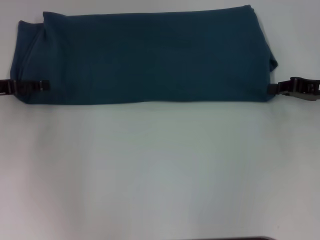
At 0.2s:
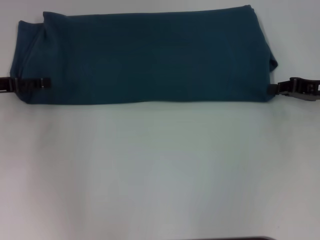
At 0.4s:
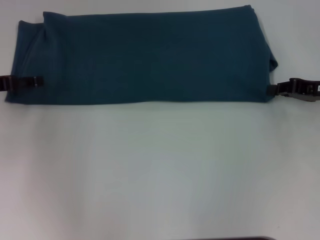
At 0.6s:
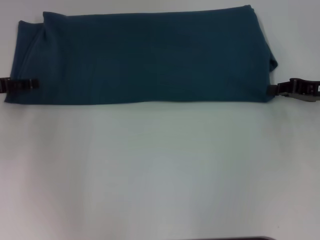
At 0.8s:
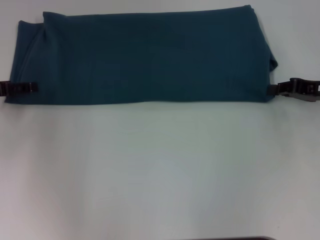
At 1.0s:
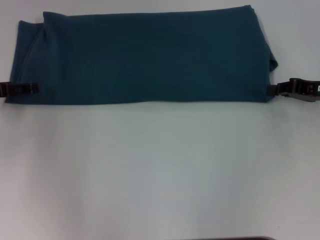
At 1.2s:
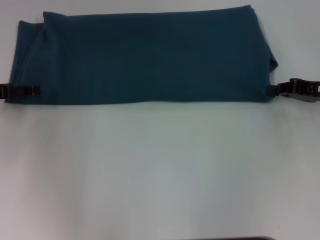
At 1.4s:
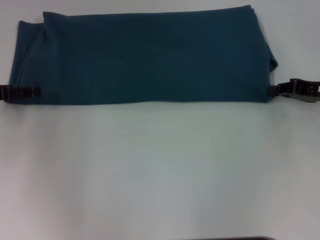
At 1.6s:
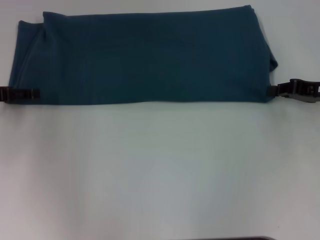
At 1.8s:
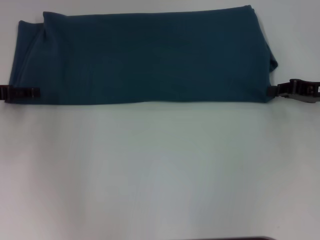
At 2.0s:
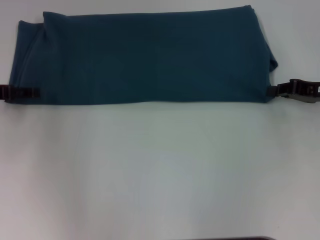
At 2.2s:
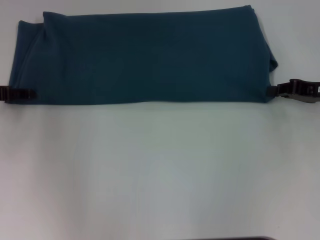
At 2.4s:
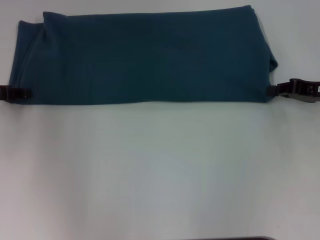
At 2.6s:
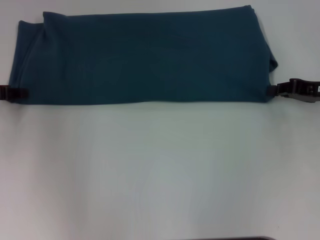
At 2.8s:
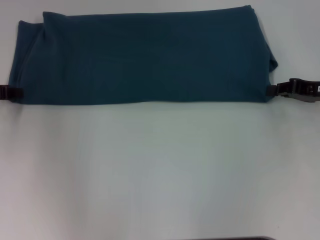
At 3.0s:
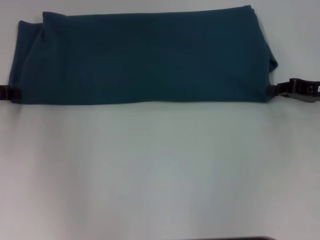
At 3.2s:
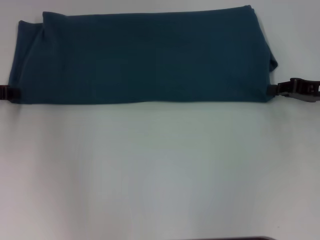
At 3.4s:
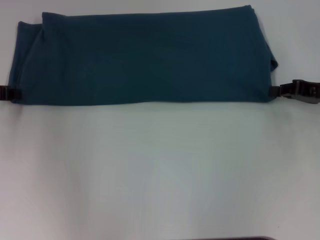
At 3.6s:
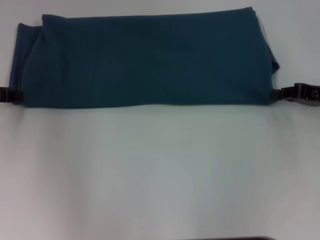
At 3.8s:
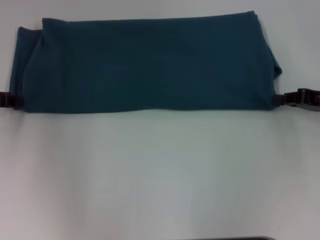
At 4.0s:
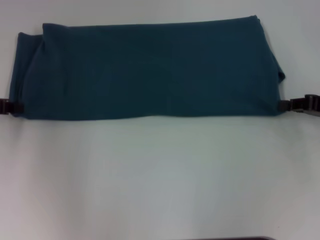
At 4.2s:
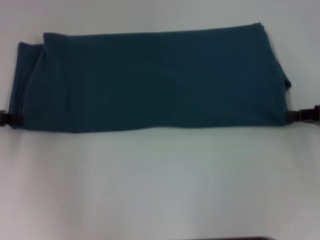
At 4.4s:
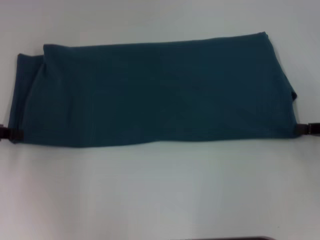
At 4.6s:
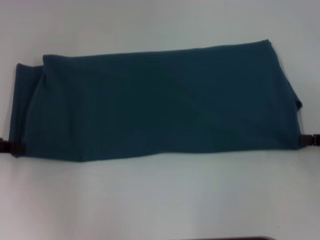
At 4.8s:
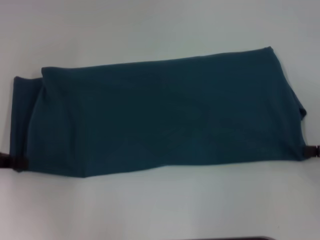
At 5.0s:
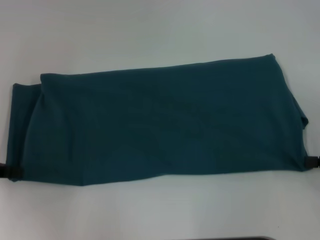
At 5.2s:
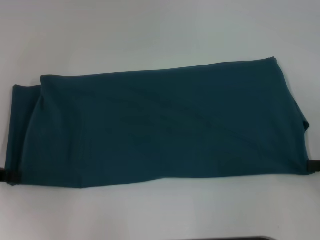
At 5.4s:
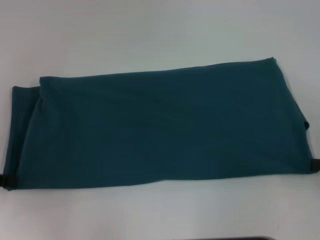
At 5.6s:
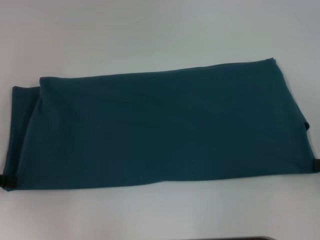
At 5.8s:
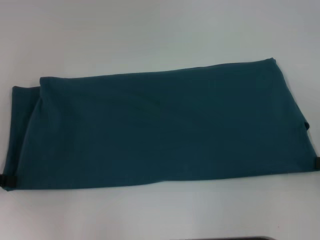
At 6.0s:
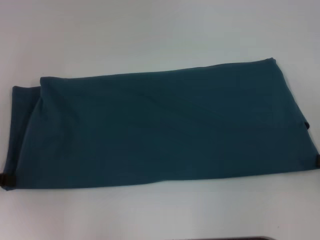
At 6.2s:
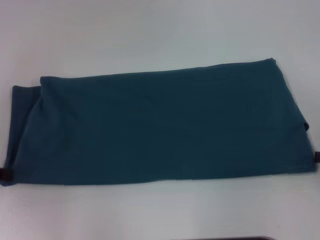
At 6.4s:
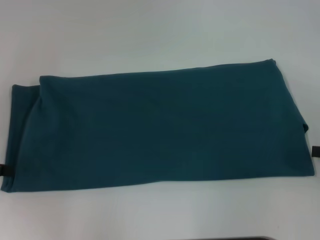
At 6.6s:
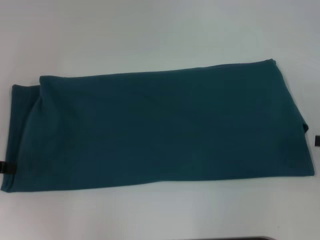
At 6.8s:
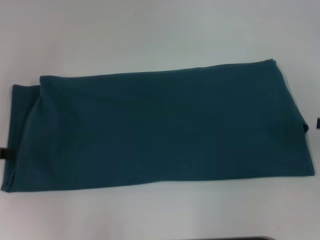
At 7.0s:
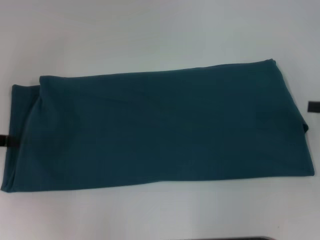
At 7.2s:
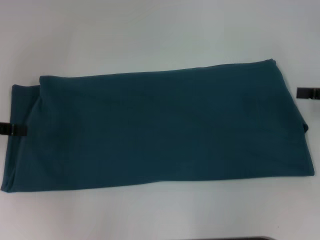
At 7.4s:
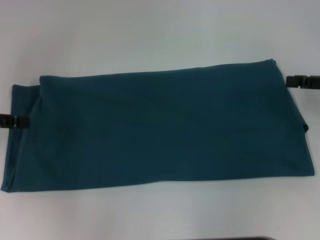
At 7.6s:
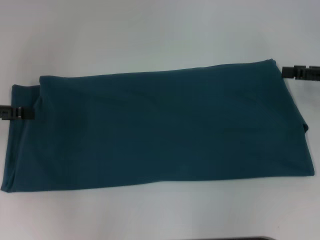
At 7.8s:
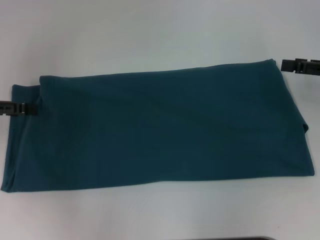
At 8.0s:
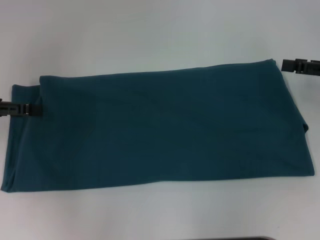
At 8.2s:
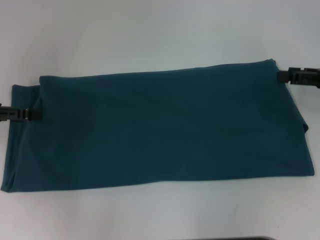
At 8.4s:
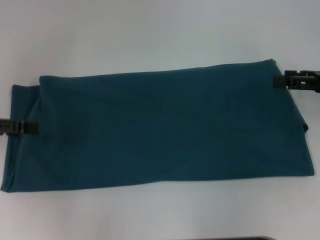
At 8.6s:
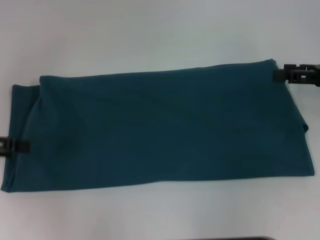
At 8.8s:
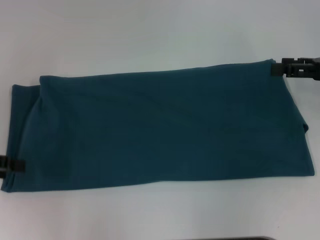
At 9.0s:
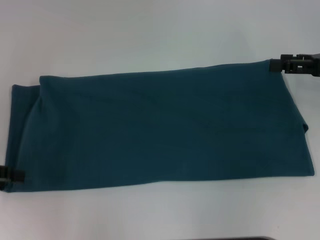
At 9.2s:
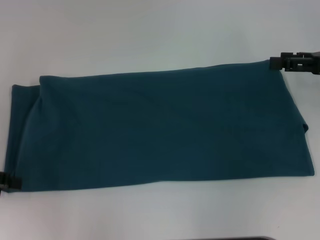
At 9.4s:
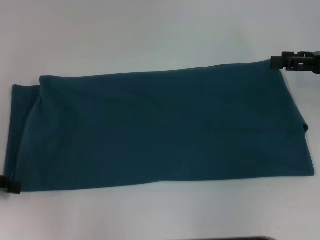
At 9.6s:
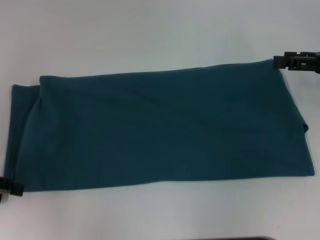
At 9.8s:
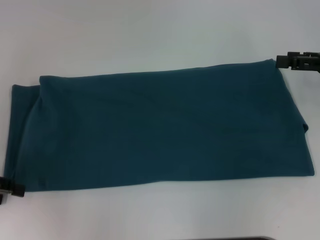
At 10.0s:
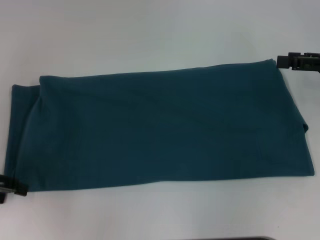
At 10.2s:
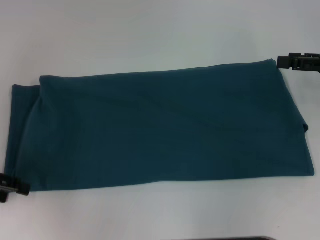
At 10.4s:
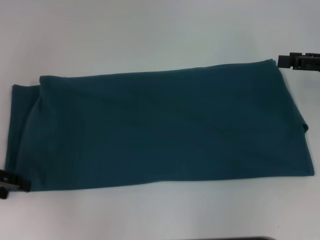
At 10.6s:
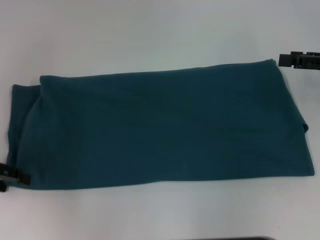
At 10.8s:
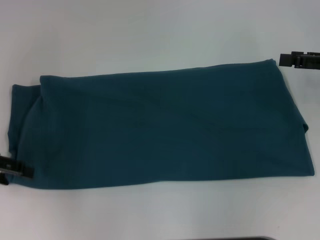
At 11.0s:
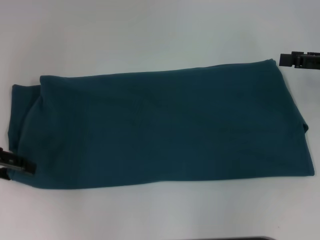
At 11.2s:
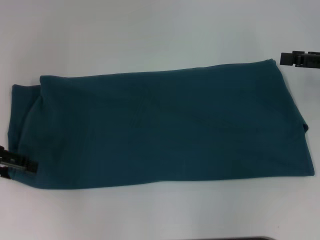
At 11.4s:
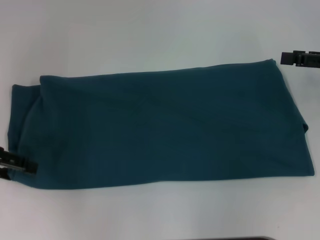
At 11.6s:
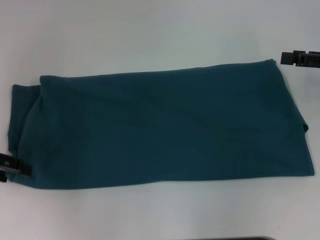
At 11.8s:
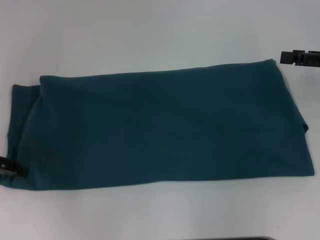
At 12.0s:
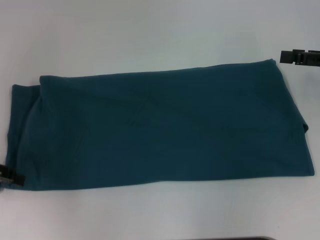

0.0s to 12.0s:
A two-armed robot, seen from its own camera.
Step, 0.0s to 5.6s: Pull the clothes with your left hand.
Step, 0.0s to 5.6s: Pull the clothes with your right hand.
0.0s to 1.6s: The grippers make only small movements.
3.0s to 4.4s: The left gripper changes place by approximately 5 cm. The right gripper moves backward, about 5 cm.
4.4s to 6.0s: The right gripper shifts some 5 cm backward.
6.0s to 7.6s: The left gripper moves about 5 cm, and opens its fingers. Meanwhile the right gripper moves forward, roughly 10 cm, and opens.
7.6s to 9.0s: The right gripper opens its fingers; the left gripper ends up about 5 cm from where it was.
10.4s to 12.0s: The grippers stay close to where they were, moving slightly.

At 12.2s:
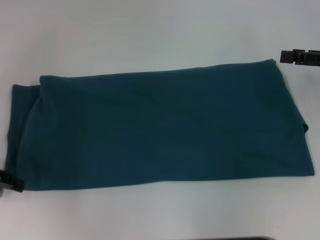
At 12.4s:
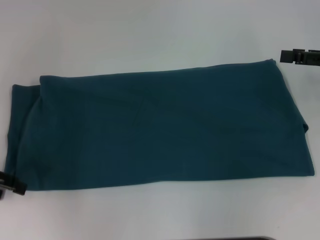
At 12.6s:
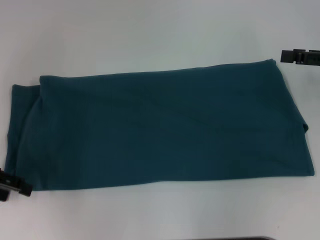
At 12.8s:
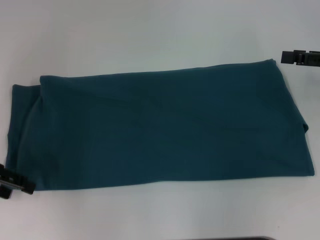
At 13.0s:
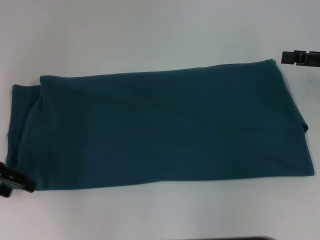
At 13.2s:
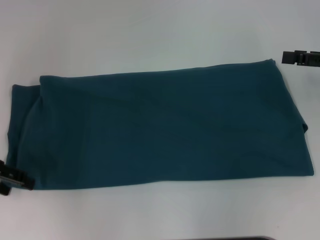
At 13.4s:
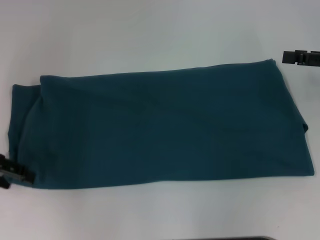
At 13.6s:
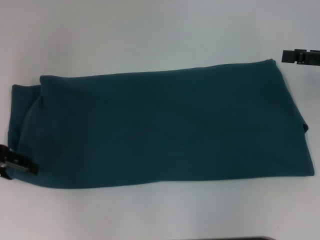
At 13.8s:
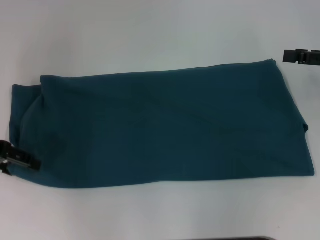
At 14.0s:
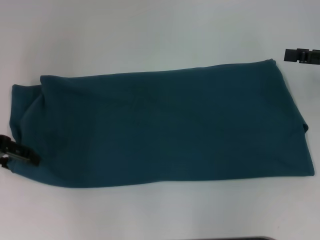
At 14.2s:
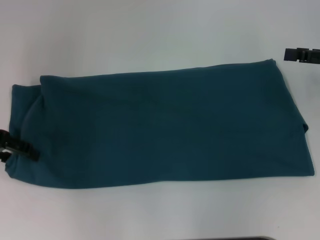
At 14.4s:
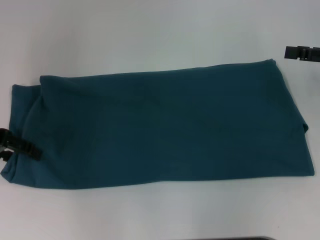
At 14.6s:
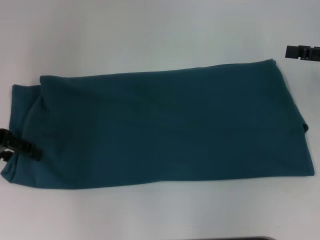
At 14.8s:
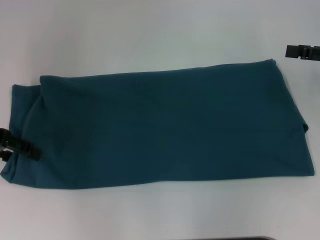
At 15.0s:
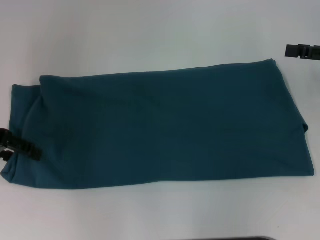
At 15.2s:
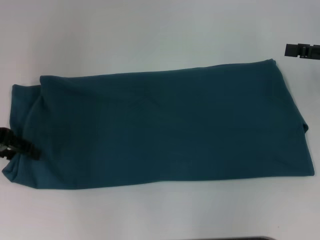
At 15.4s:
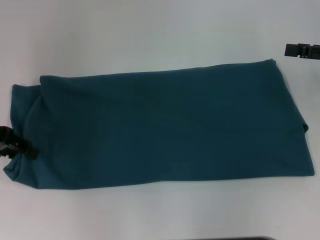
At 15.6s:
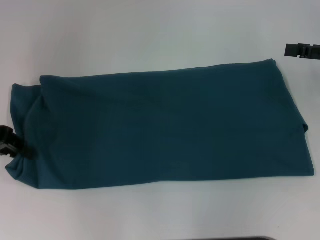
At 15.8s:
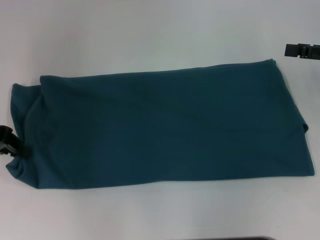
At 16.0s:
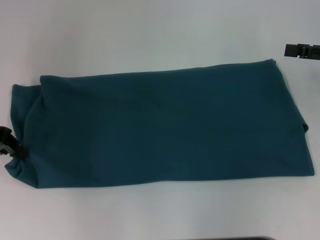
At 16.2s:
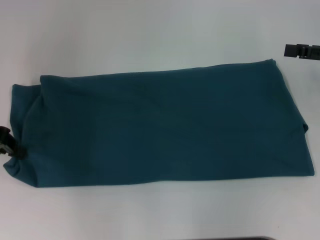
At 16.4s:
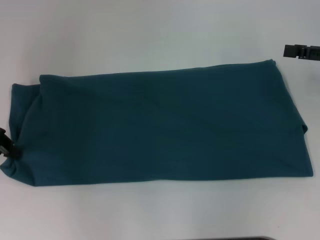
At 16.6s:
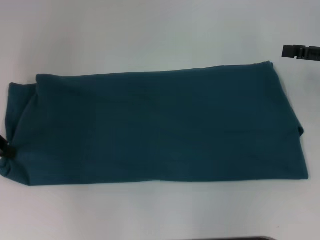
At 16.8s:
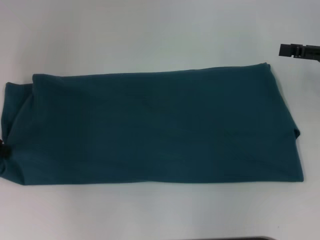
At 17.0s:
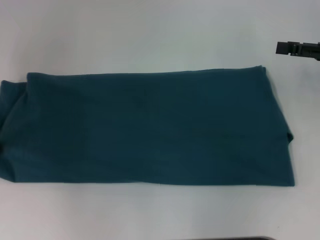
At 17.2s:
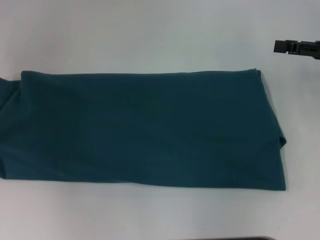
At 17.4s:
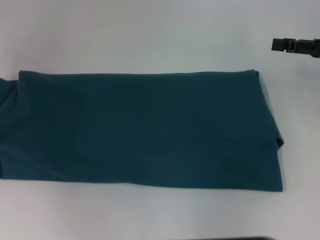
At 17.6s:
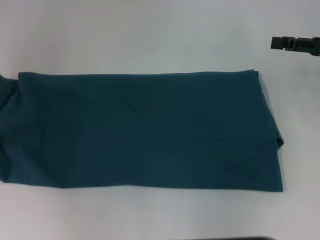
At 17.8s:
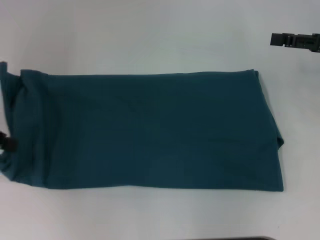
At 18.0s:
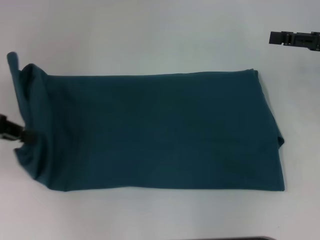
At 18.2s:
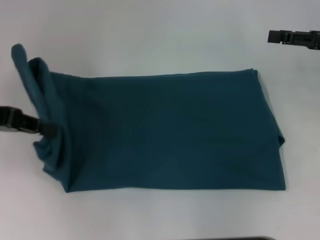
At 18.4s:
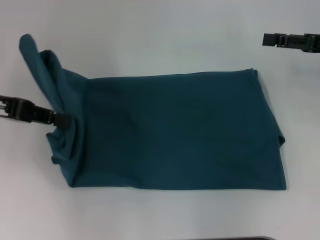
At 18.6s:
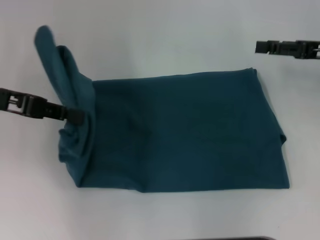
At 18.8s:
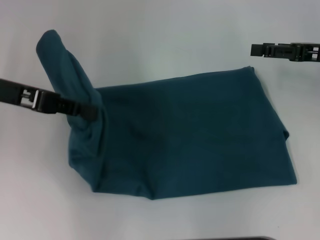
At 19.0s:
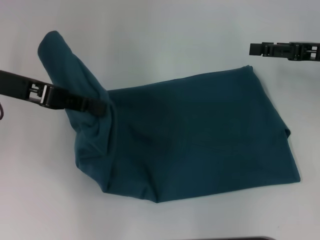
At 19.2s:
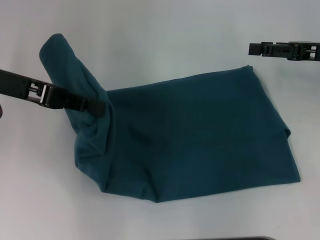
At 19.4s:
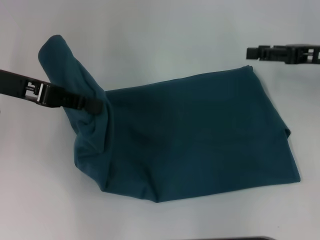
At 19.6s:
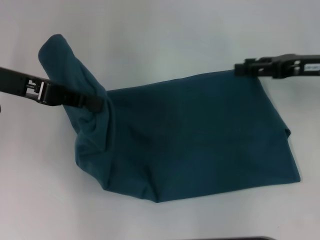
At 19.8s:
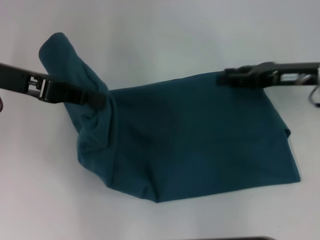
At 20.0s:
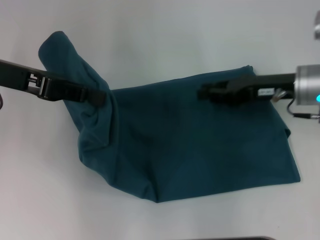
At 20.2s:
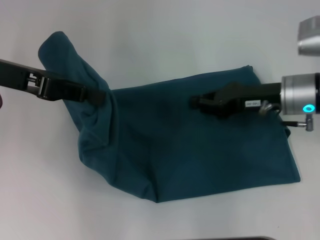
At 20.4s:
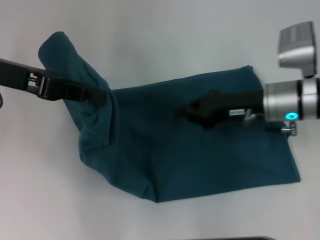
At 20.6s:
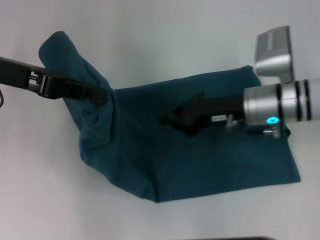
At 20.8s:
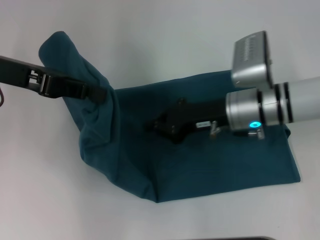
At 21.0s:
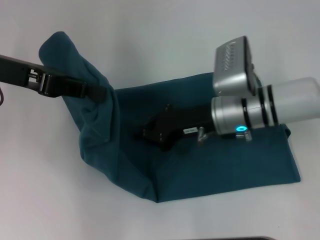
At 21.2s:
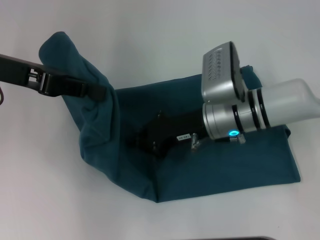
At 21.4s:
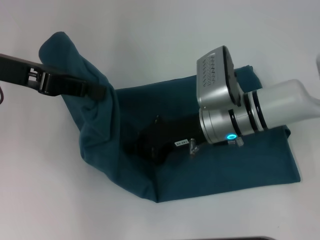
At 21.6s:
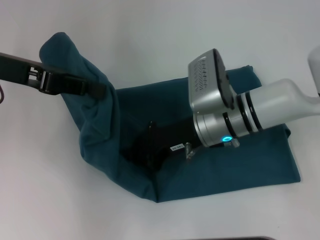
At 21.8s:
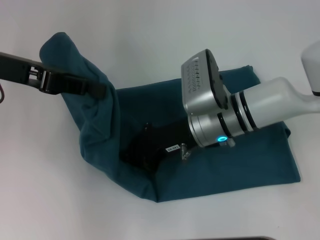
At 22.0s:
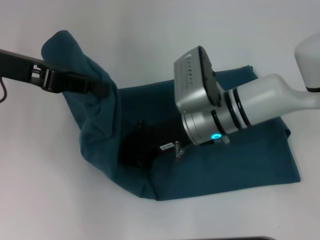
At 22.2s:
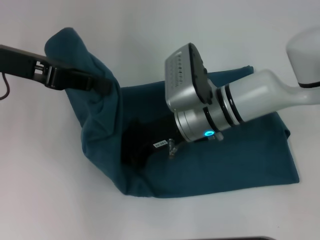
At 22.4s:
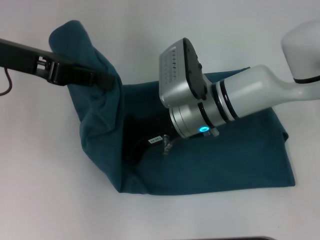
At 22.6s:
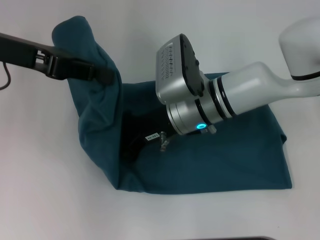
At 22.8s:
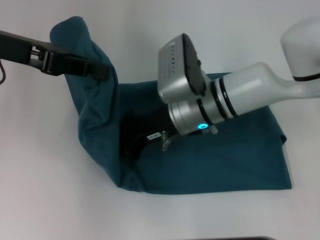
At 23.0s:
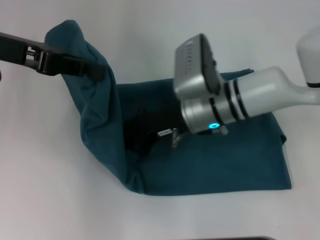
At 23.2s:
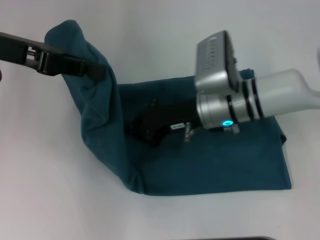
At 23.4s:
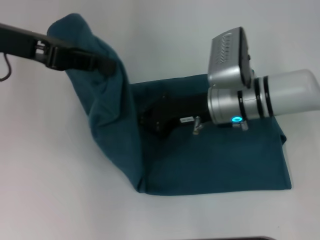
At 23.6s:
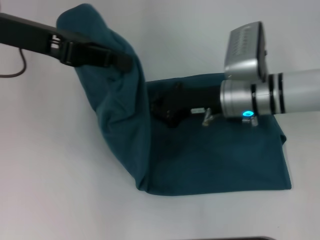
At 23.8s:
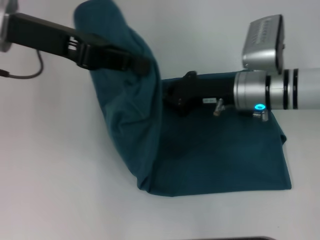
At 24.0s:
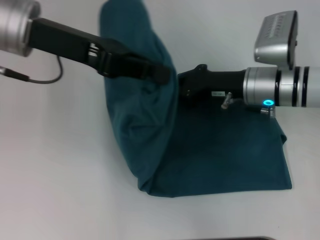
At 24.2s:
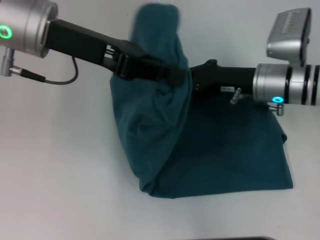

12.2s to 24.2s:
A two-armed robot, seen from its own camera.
Step, 12.2s to 24.0s: Press the middle of the clothes with your right hand.
12.2s to 15.2s: The grippers make only small movements.
15.2s to 16.6s: The left gripper closes up.
18.2s to 19.8s: The left gripper is displaced to the right by some 5 cm. The right gripper travels to the left by approximately 5 cm.
19.8s to 21.2s: The right gripper goes approximately 15 cm to the left, and closes up.
21.2s to 22.6s: The right gripper heads to the left, covering about 5 cm.
22.6s to 24.2s: The right gripper heads to the right, covering about 15 cm; the left gripper goes about 10 cm to the right.
